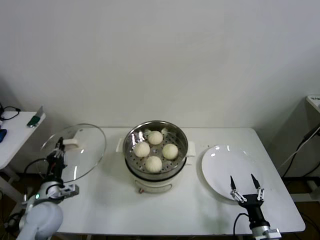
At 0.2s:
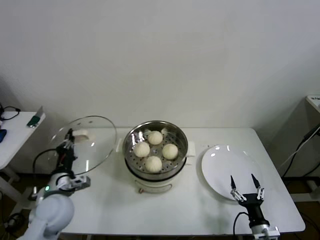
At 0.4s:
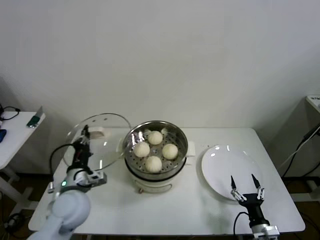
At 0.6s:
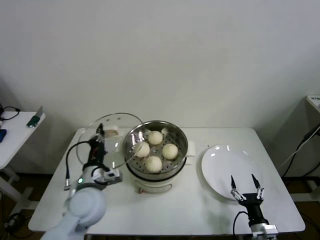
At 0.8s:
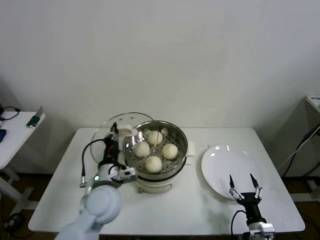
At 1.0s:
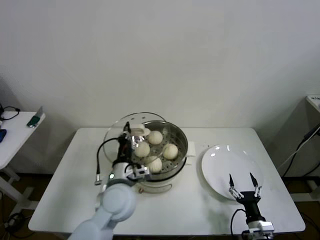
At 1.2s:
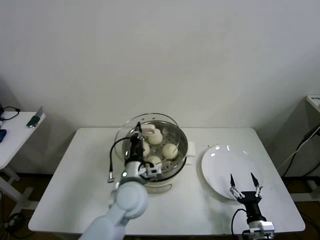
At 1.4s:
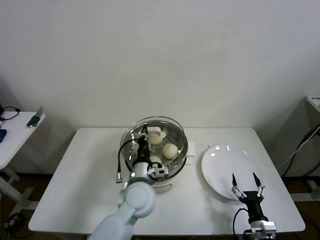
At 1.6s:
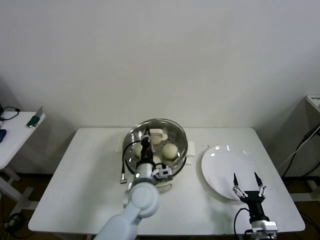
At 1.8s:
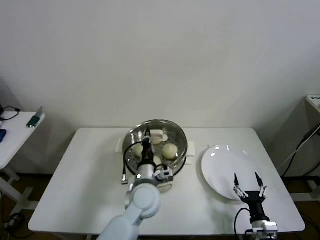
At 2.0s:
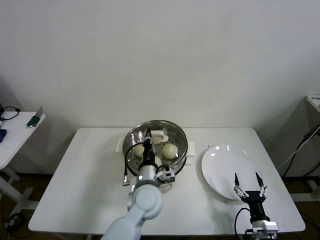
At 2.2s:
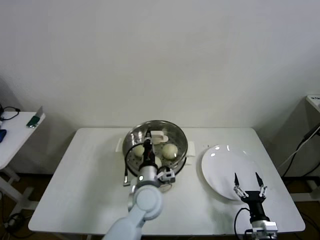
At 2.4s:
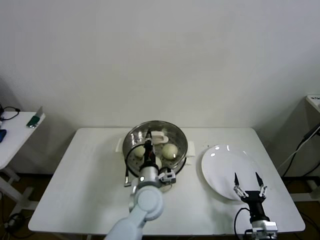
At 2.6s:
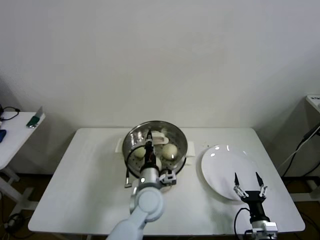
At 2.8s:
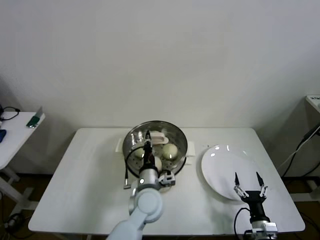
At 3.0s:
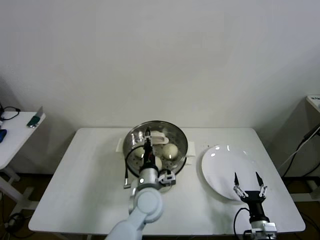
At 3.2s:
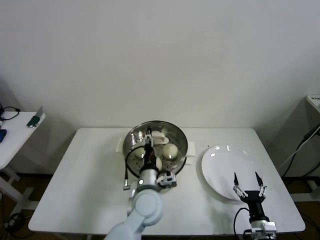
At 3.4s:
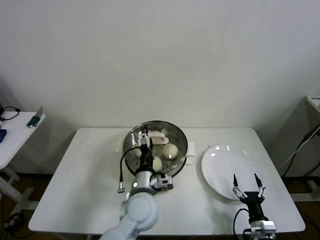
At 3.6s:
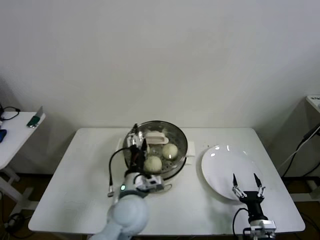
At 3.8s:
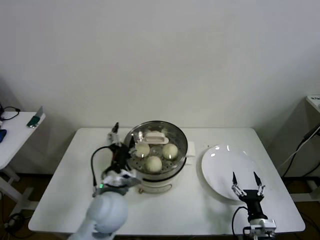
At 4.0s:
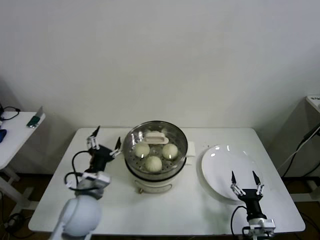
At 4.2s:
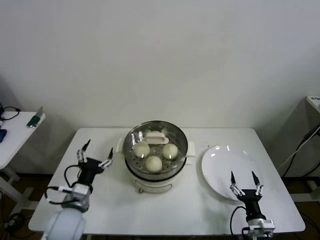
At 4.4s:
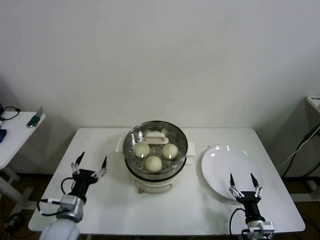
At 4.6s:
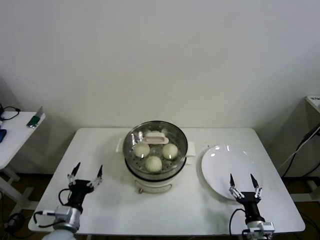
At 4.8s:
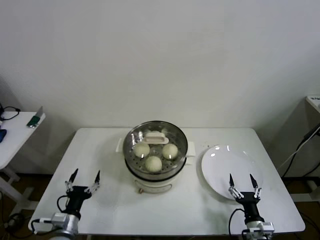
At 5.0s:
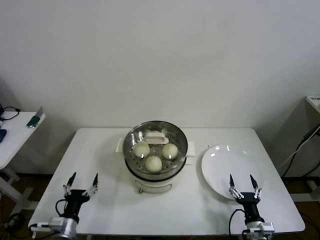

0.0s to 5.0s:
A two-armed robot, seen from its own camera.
Step, 0.0s to 3.2s: Place the pot lid on the steamer with left gripper.
0.0s to 1.6s: The left gripper travels to the right by some 30 cm.
1.6s to 3.4s: The left gripper opens up.
3.4s to 5.0s: The left gripper travels to the left and downward by approximately 30 cm.
